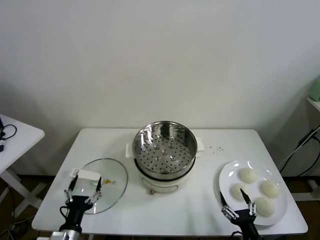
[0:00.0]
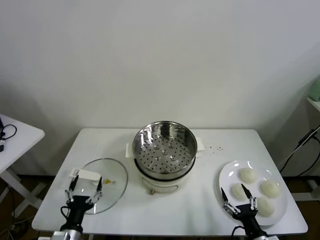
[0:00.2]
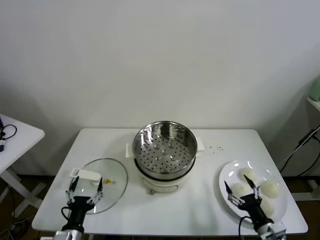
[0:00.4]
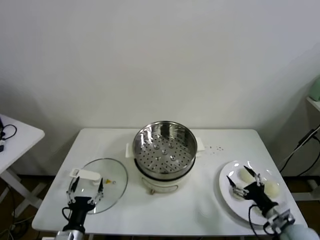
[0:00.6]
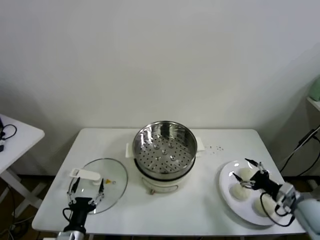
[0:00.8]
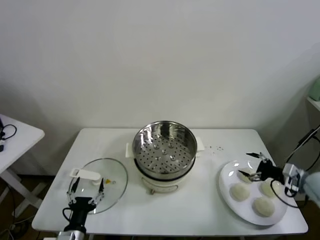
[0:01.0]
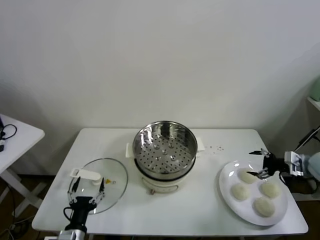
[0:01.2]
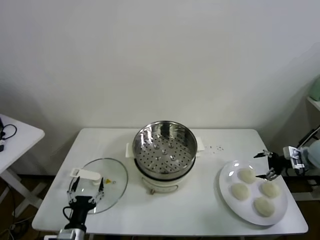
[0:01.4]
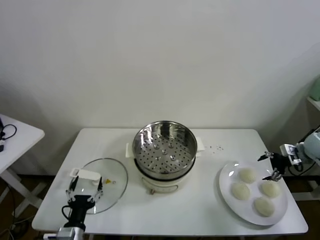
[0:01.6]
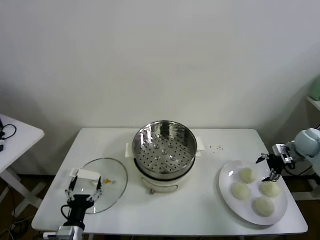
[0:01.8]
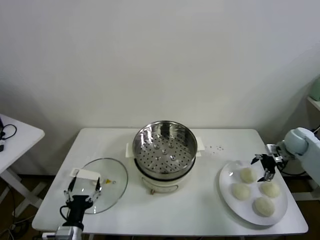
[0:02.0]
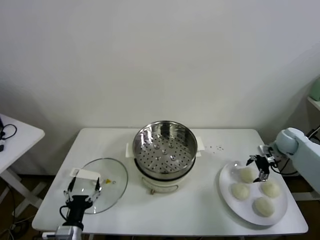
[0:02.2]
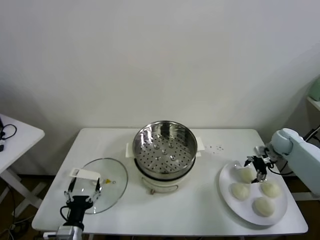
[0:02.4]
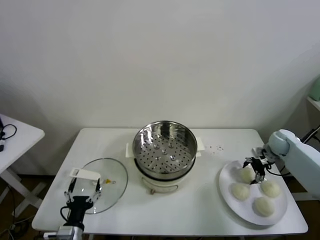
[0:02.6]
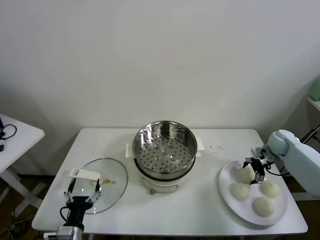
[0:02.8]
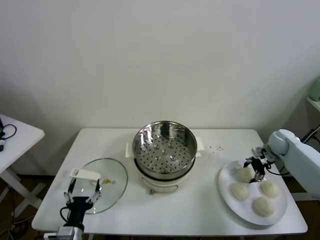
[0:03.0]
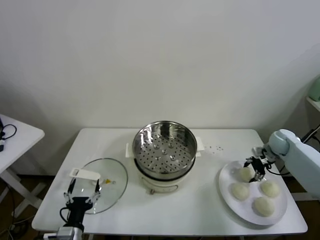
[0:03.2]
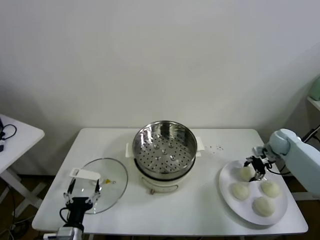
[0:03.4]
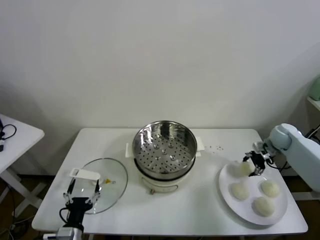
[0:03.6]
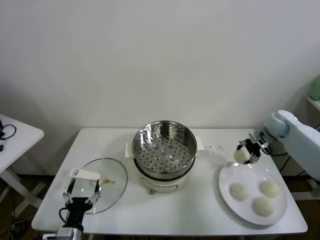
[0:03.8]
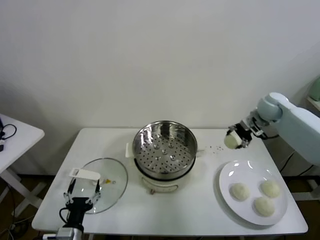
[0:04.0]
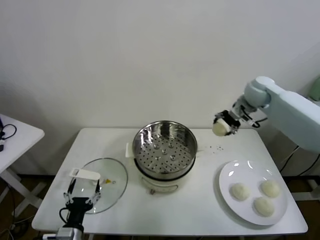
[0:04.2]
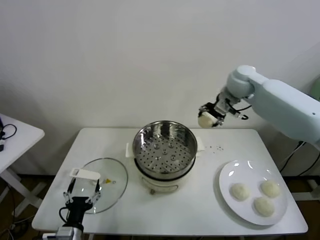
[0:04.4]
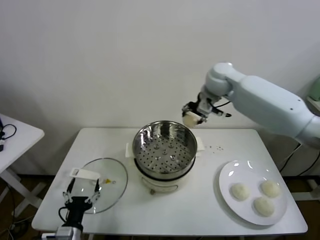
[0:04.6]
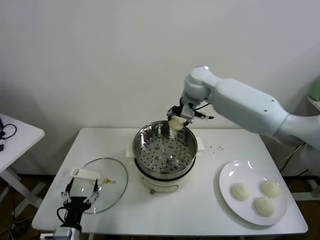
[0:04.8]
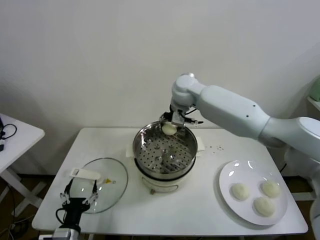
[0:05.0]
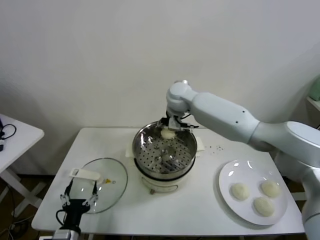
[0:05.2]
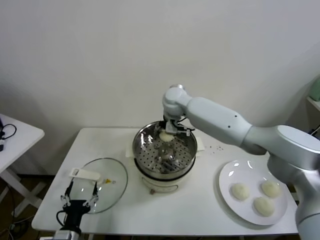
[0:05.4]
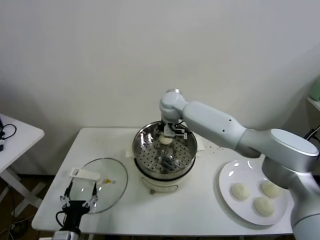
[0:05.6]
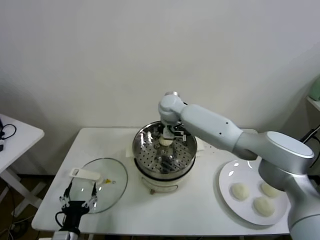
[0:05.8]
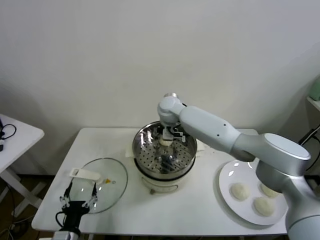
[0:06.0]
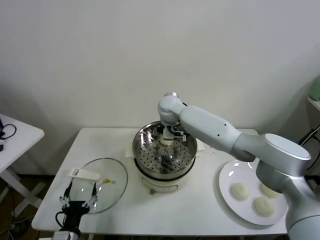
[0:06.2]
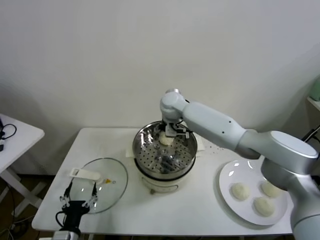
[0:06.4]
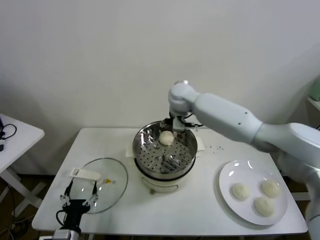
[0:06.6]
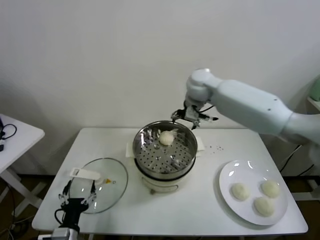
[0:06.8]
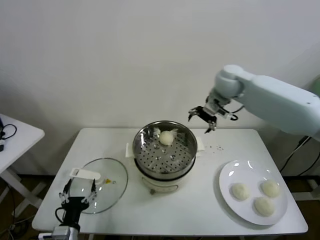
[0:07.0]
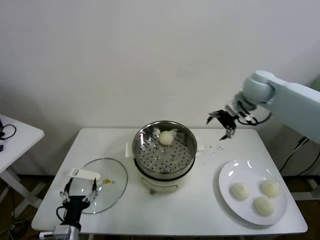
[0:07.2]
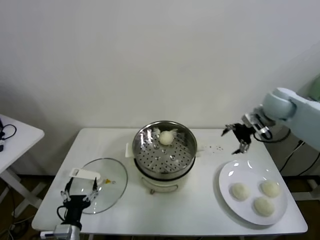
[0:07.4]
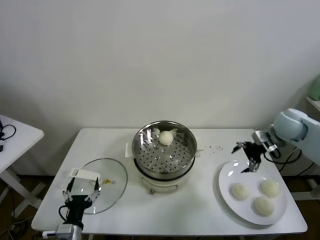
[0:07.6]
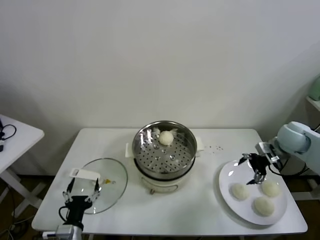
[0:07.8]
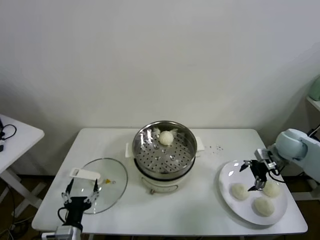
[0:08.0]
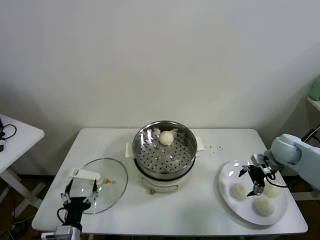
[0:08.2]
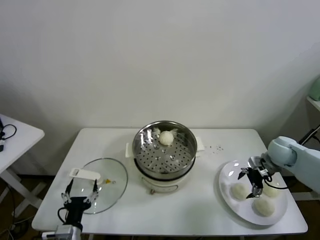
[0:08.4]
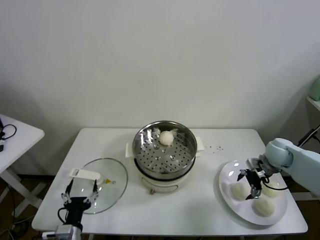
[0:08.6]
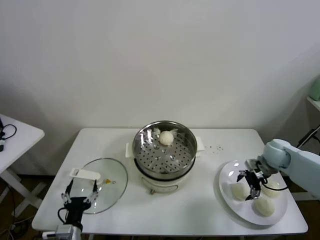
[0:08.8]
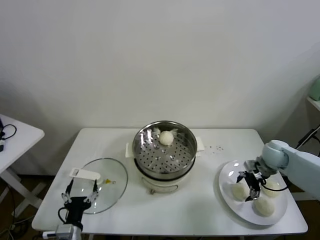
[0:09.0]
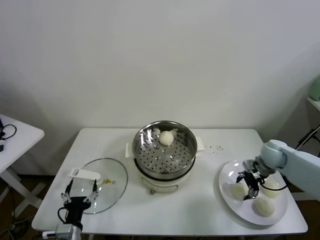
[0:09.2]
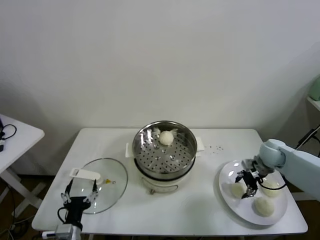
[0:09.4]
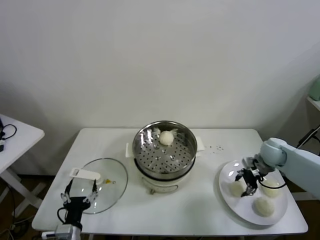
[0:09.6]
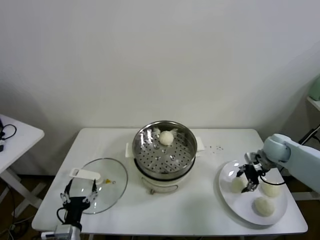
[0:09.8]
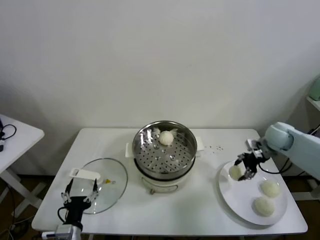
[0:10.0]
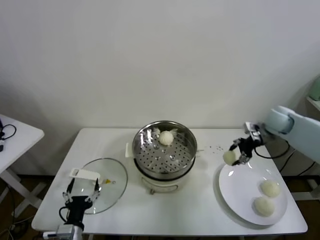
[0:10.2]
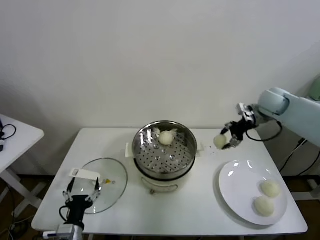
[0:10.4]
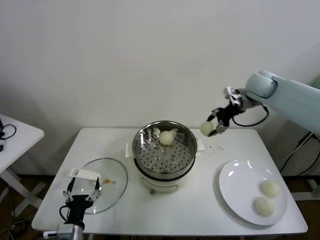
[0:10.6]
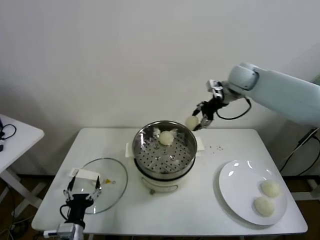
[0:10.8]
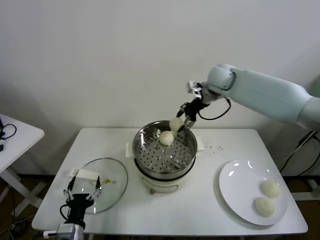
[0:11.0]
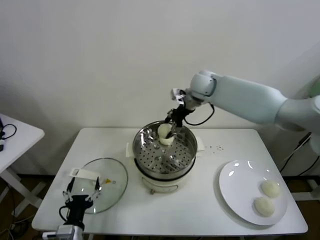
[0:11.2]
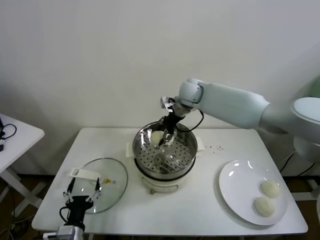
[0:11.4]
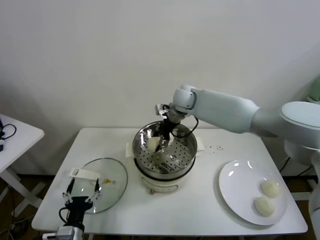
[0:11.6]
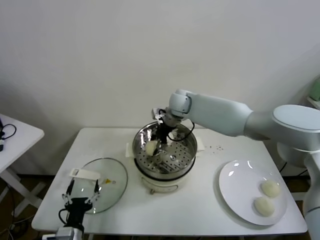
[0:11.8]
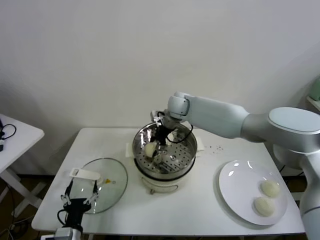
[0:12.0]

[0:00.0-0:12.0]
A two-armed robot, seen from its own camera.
Task of the whole recording: take steamed baozi put them in steamer.
Step, 0:00.0 to 0:03.2: Grasp the baozi in the plate with right gripper.
Step, 0:03.4 to 0:06.2: Place the baozi on the steamer with right gripper.
Step, 0:06.4 to 0:09.2: Grasp the baozi in the plate with right gripper.
0:01.6 to 0:03.0: The right gripper travels to the left, downward and forward by about 10 cm, and closes.
0:03.0 to 0:04.4: The right gripper shifts about 35 cm to the left and upward.
0:04.4 to 0:06.0: The right gripper is displaced to the left and downward by some 25 cm, and opens.
0:06.0 to 0:07.6: The right gripper shifts approximately 40 cm to the right.
0:07.6 to 0:09.0: The right gripper moves downward, some 10 cm.
0:09.0 to 0:10.4: The right gripper goes roughly 20 cm upward and forward, and closes.
0:10.4 to 0:12.0: The right gripper goes some 30 cm to the left.

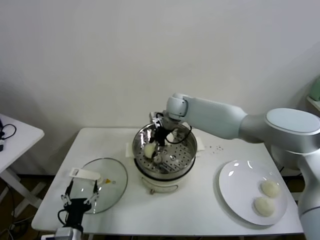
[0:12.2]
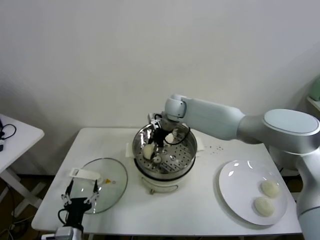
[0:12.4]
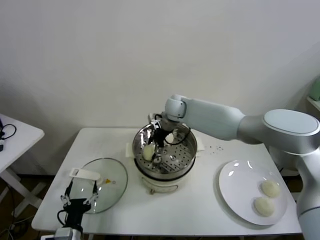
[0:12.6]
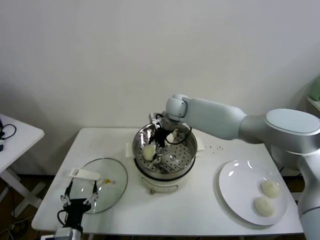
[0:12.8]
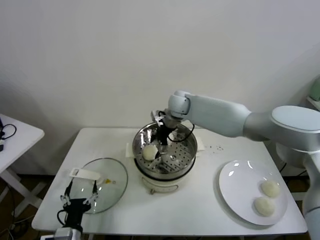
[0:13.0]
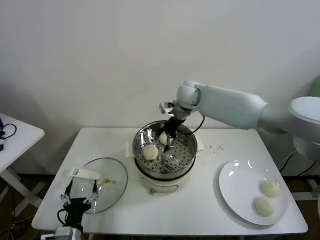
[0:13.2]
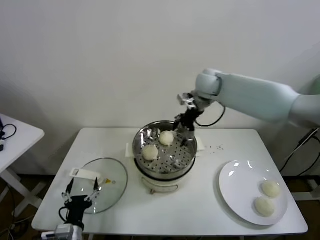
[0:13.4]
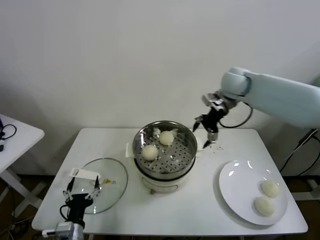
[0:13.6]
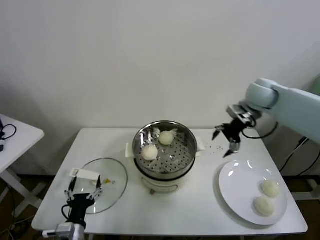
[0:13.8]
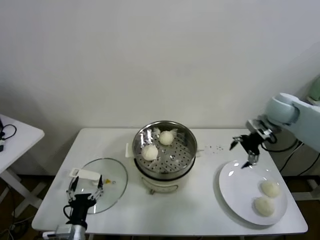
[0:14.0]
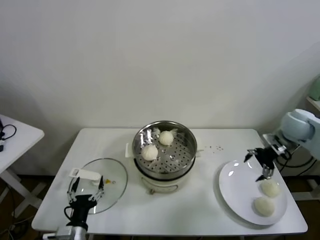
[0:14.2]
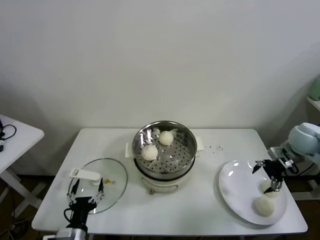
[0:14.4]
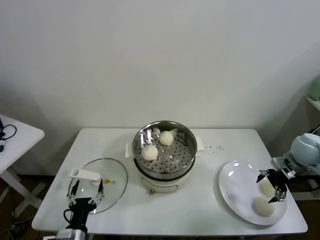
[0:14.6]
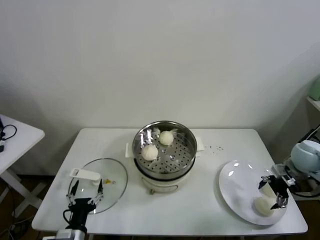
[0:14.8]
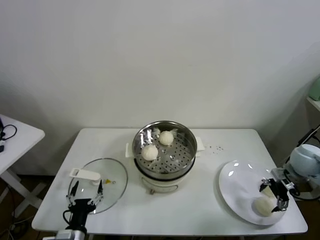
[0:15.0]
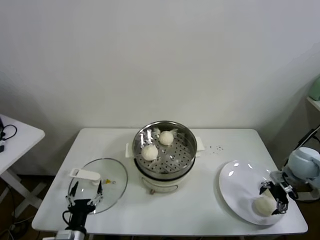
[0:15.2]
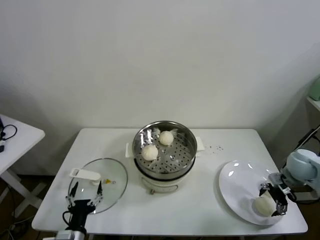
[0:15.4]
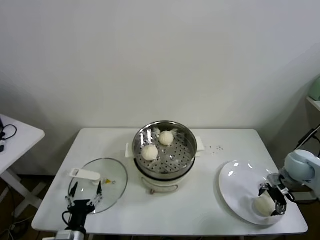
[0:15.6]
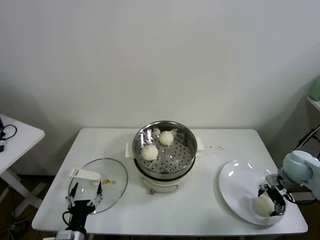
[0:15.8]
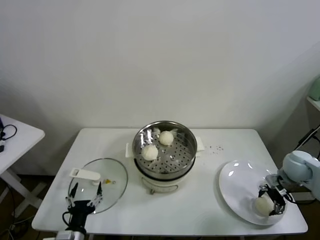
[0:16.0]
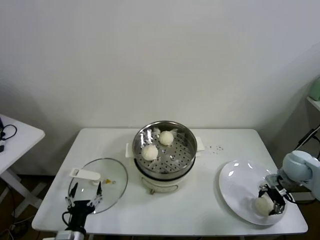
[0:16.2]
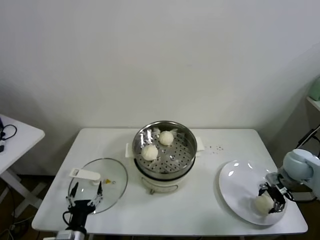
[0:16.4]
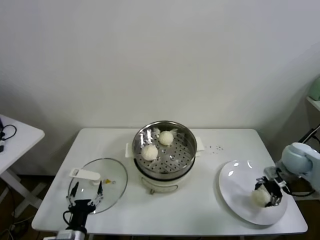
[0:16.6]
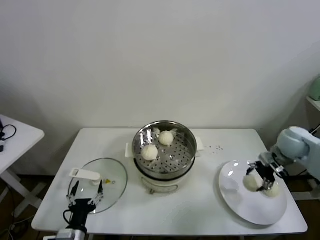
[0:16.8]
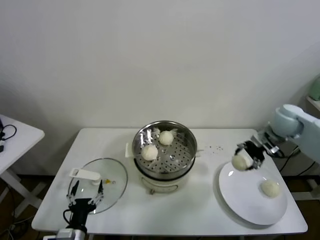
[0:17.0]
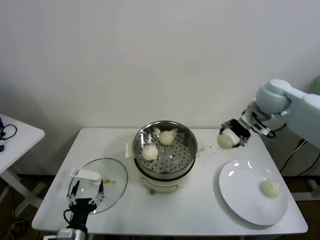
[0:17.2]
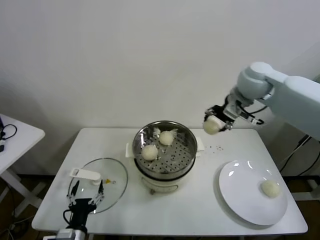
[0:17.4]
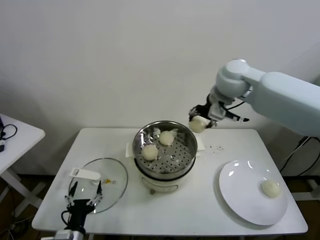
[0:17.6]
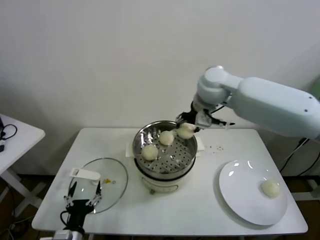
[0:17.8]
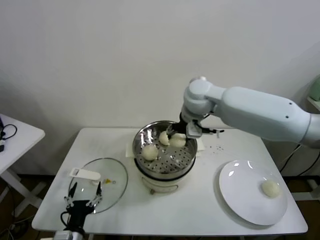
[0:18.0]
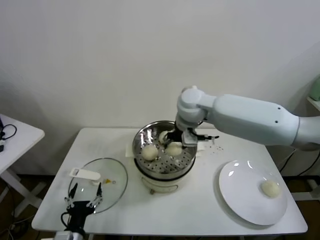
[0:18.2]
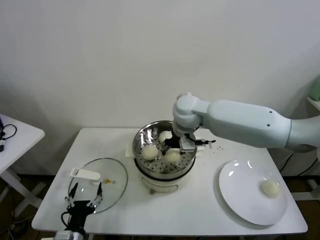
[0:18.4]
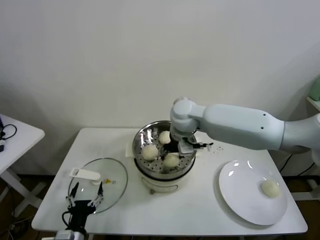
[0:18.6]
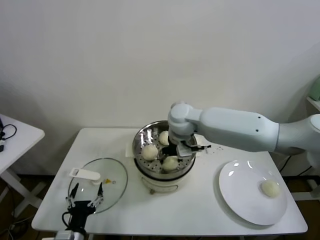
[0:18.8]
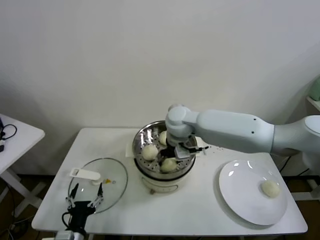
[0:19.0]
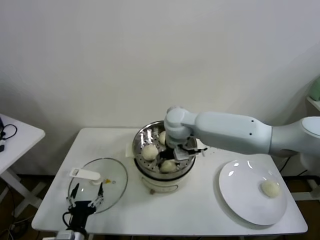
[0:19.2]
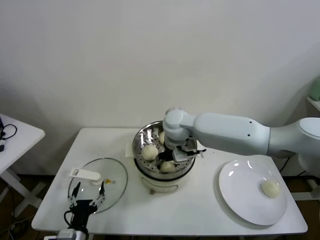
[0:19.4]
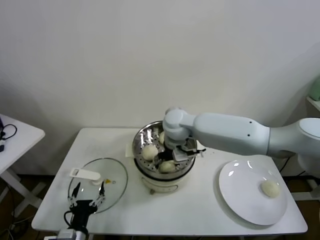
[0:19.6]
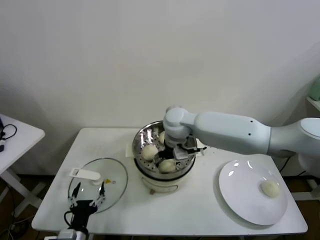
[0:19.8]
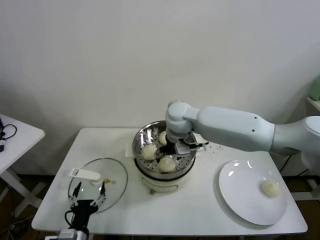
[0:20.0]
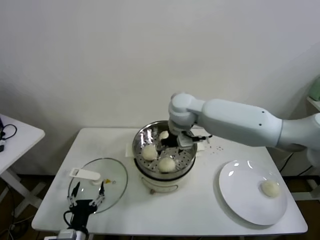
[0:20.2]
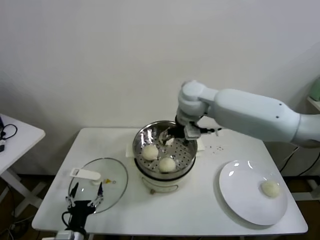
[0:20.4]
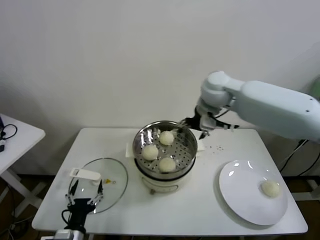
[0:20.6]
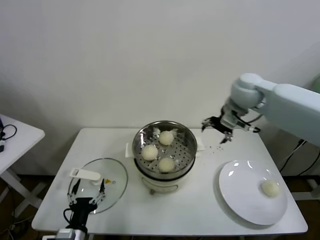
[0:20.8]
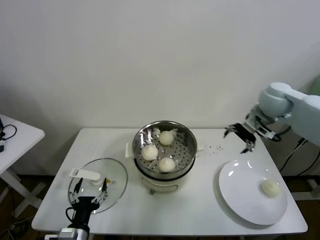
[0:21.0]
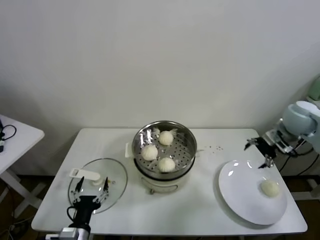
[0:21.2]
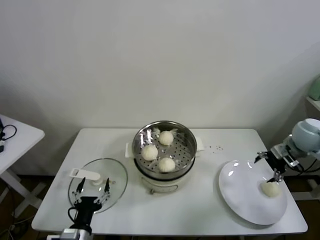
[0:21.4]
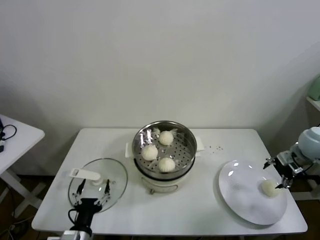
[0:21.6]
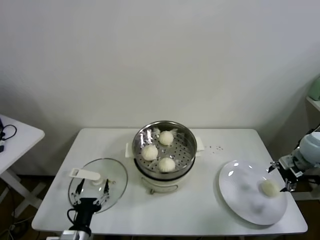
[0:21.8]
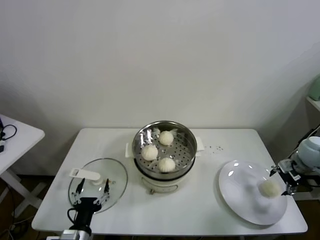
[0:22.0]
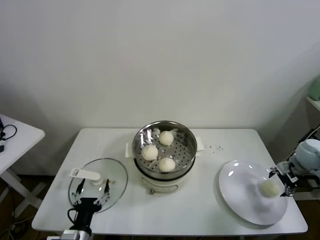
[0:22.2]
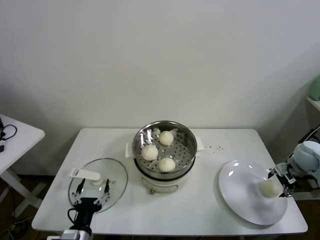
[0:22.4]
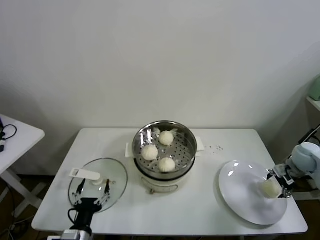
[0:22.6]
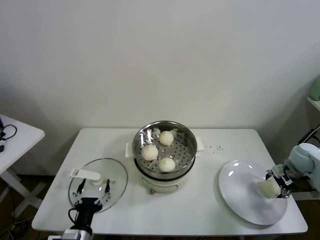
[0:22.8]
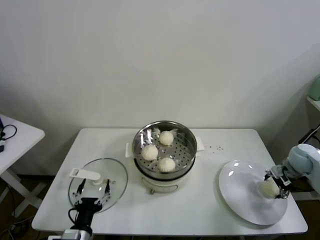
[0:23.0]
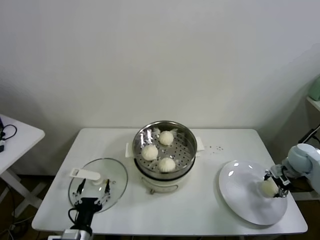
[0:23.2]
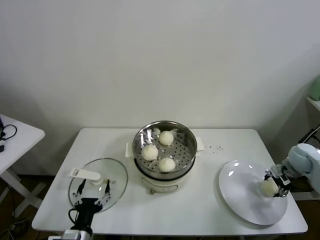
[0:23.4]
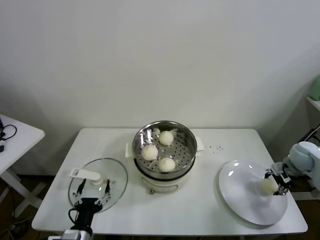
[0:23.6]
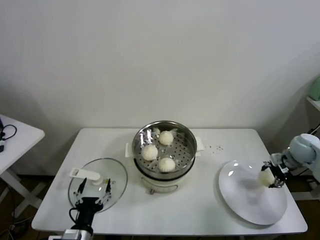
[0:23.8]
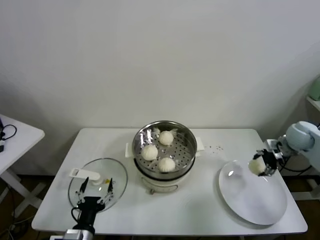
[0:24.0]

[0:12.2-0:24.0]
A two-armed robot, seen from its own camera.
Task of the whole recording: take steamed baozi put them in steamer.
Step, 0:13.0 to 0:16.0: Grasp the baozi in the plate with right gripper.
Step, 0:16.4 to 0:19.6: Place the baozi on the steamer with right gripper.
Step, 0:19.8 to 0:23.2: Grasp the baozi in the plate with right gripper.
0:12.2 to 0:13.6: The right gripper goes about 25 cm to the right and upward, and opens up.
0:13.6 to 0:15.2: The right gripper moves to the right, downward and backward, about 35 cm.
0:15.2 to 0:16.6: The right gripper closes.
0:16.6 to 0:18.2: The right gripper goes about 40 cm to the left and upward.
0:18.2 to 0:19.6: The right gripper travels downward by about 5 cm, and opens its fingers.
0:19.6 to 0:21.0: The right gripper travels to the right by about 30 cm.
0:21.0 to 0:22.6: The right gripper heads downward and to the right, covering approximately 25 cm.
0:22.6 to 0:24.0: The right gripper heads upward, covering about 5 cm, and closes.
